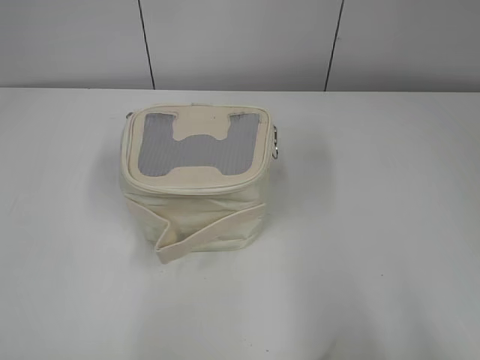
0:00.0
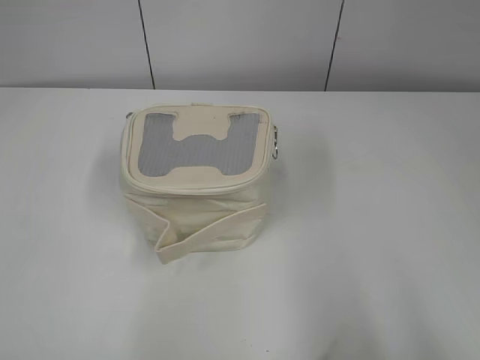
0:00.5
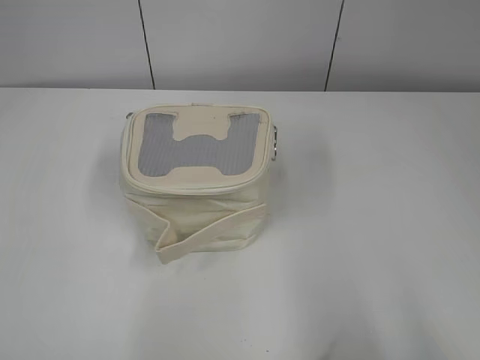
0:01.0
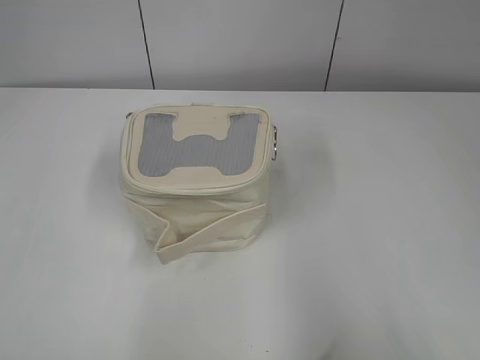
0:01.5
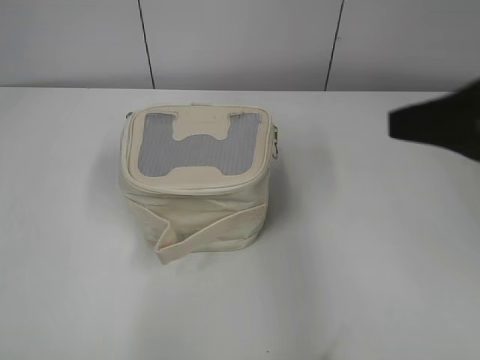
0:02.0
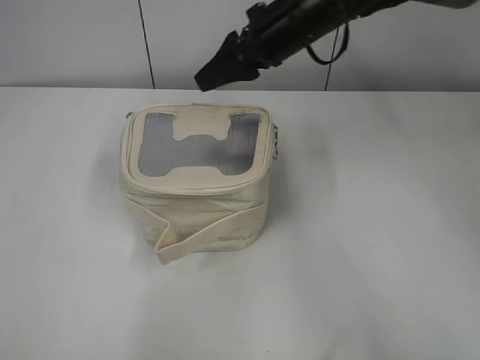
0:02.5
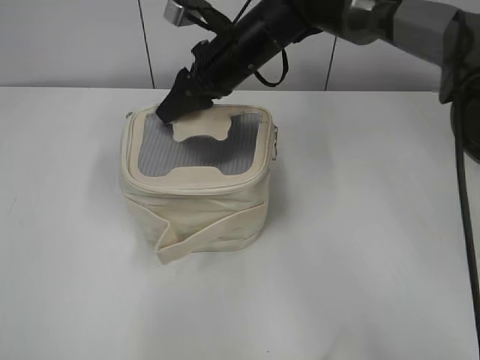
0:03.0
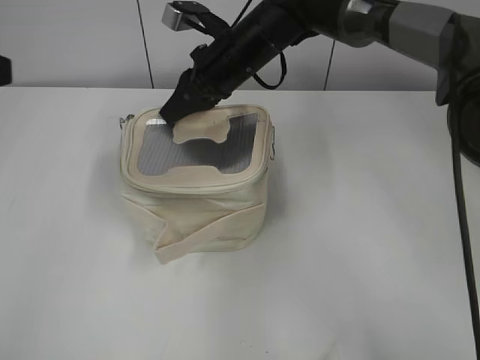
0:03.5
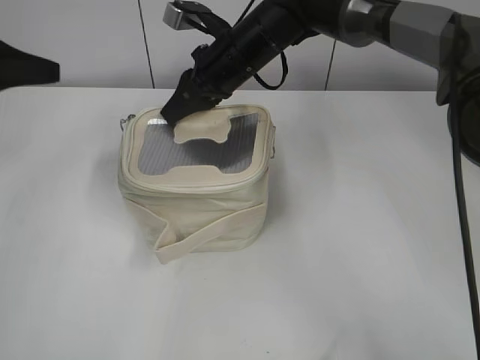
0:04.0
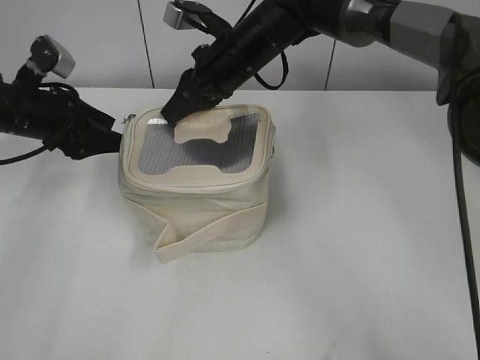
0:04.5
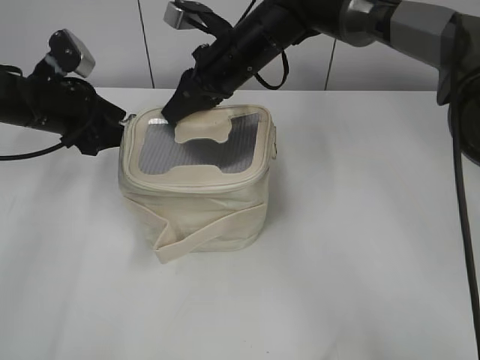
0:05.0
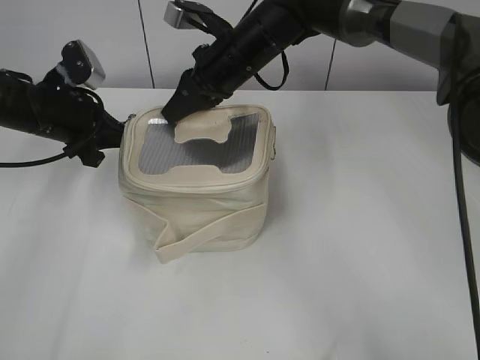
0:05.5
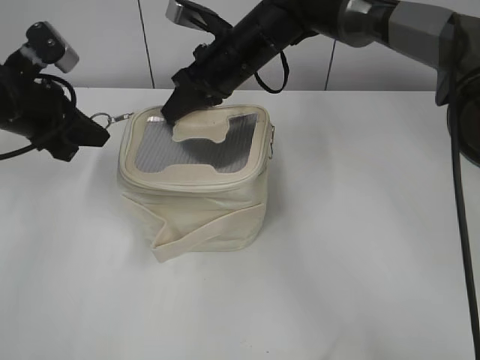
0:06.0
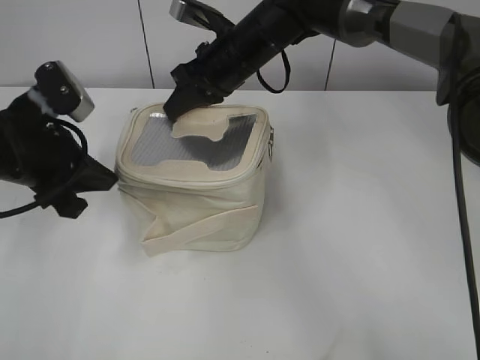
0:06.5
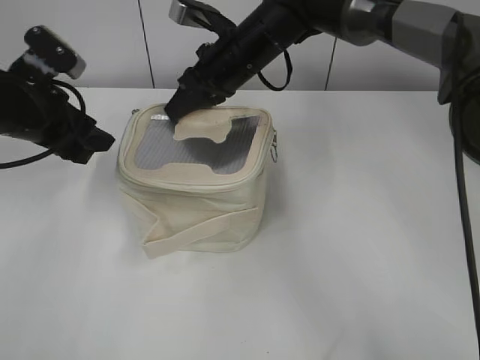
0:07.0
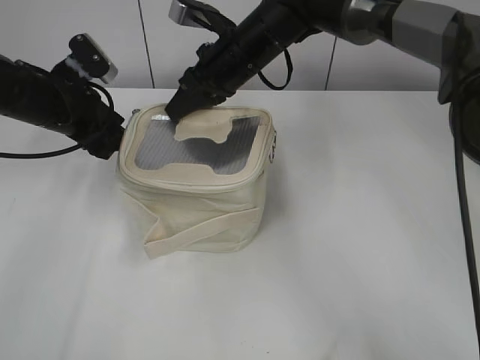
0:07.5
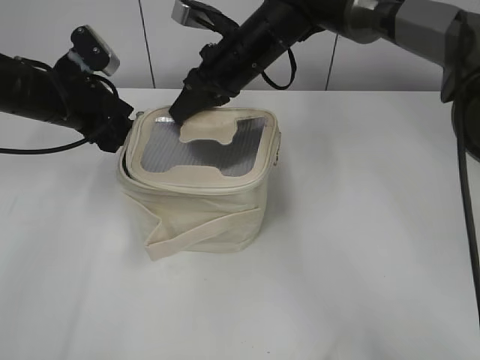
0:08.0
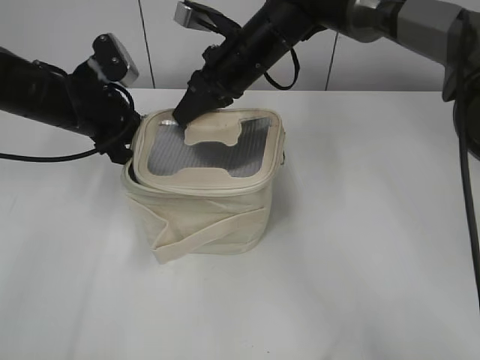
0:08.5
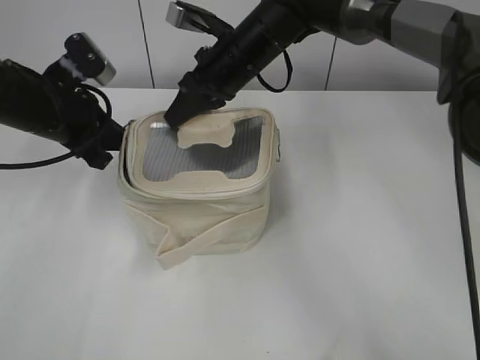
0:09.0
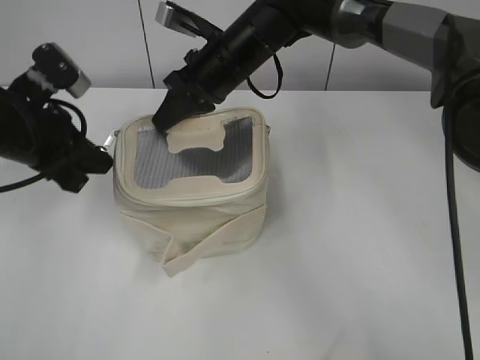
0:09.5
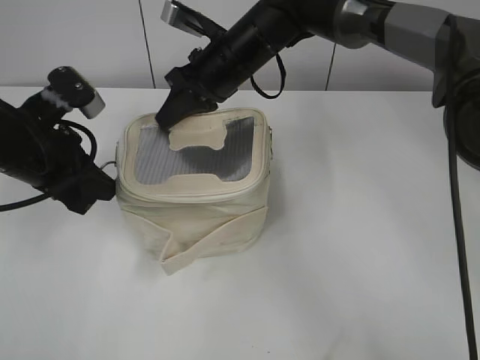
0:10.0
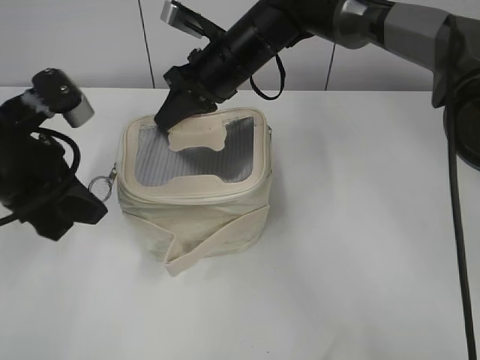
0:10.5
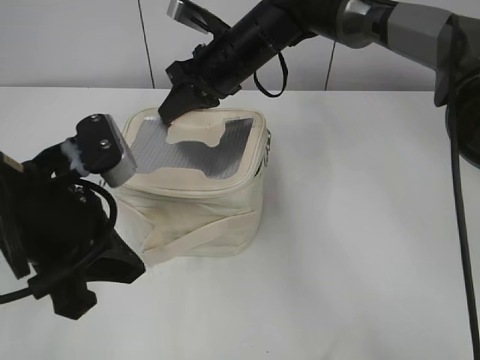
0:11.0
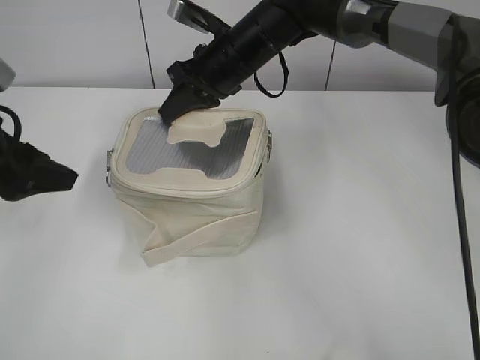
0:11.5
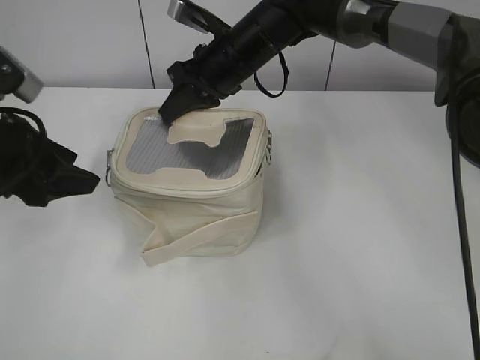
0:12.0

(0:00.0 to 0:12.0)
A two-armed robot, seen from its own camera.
0:02.0 - 0:04.0: The left gripper travels forward by some 35 cm, while the right gripper is displaced forward, to the left and downward by roughly 35 cm, and closes.
0:04.0 - 0:06.0: The left gripper travels to the right by approximately 5 cm, and closes its fingers.
0:06.0 - 0:08.0: The left gripper moves about 5 cm backward and comes back, and opens up.
0:08.0 - 0:10.0: The left gripper travels backward by roughly 10 cm, and closes its fingers.
0:10.0 - 0:12.0: The left gripper reaches approximately 10 cm backward, then returns, and opens.

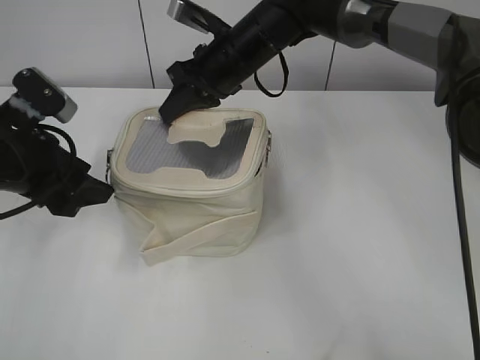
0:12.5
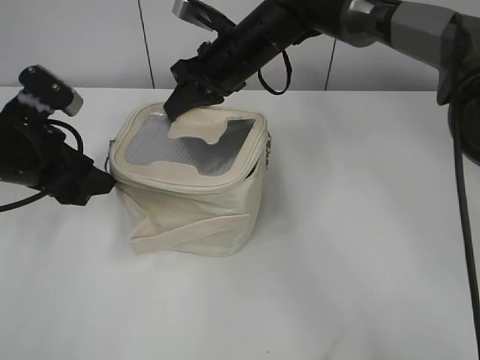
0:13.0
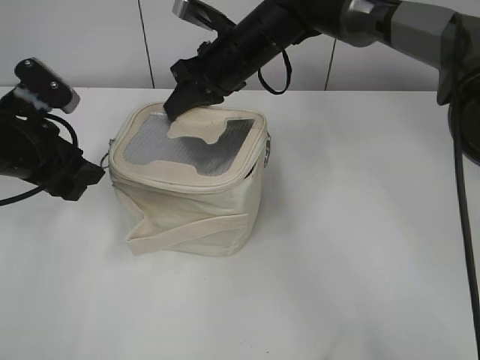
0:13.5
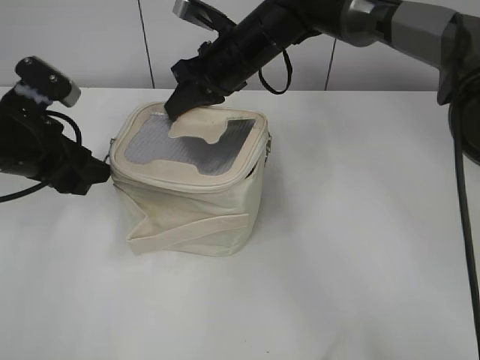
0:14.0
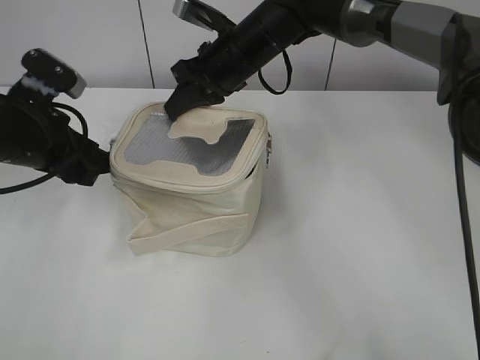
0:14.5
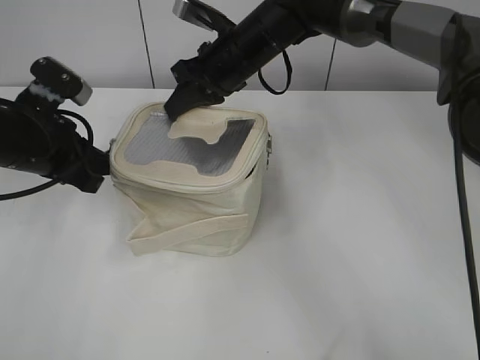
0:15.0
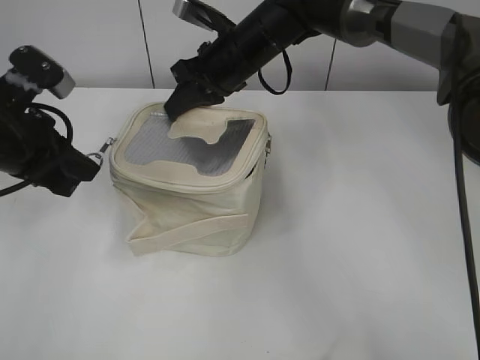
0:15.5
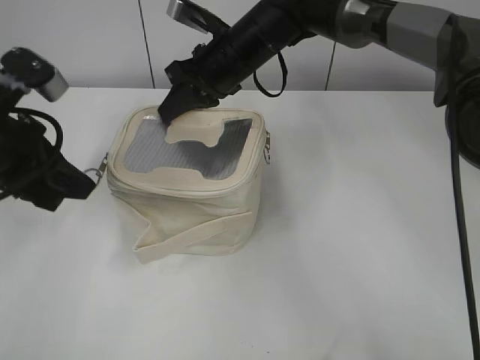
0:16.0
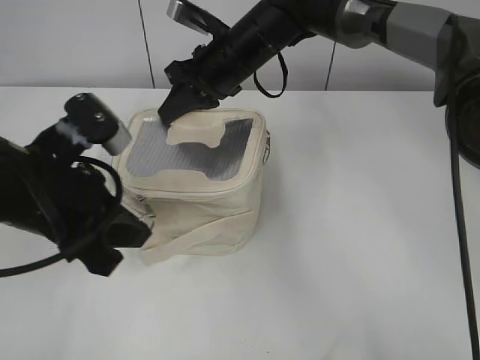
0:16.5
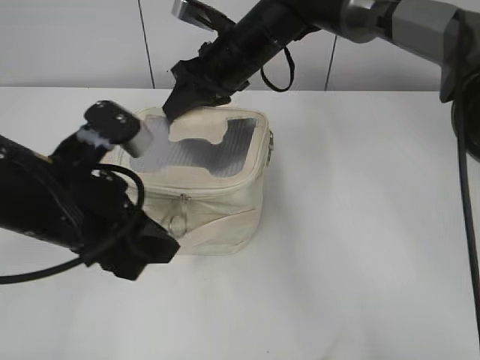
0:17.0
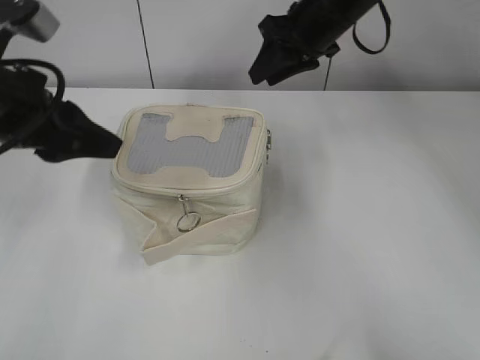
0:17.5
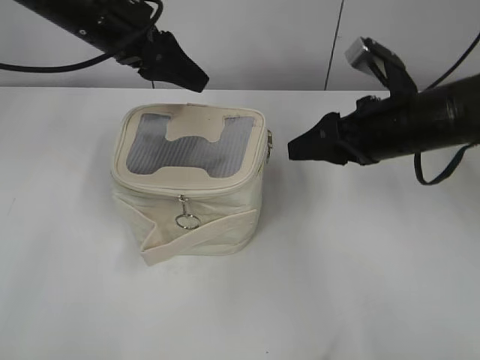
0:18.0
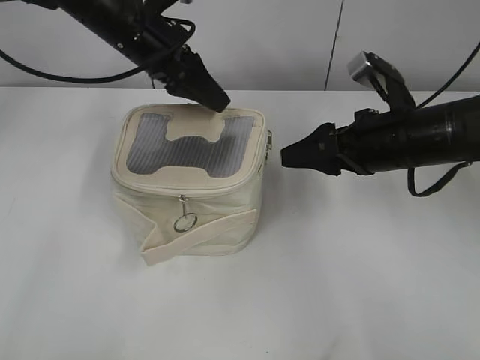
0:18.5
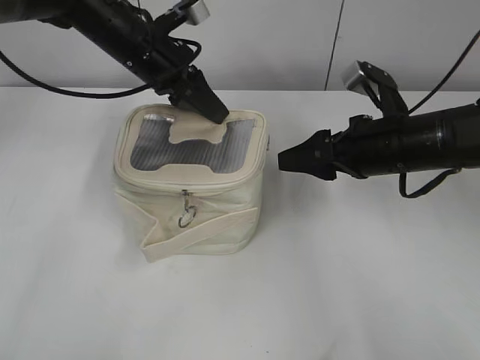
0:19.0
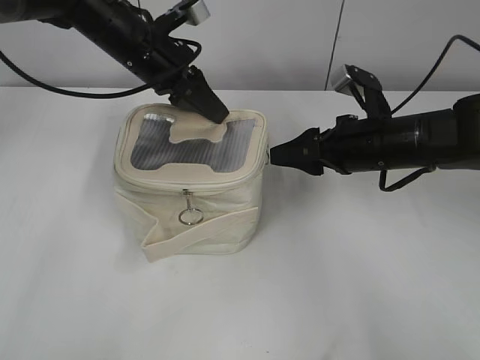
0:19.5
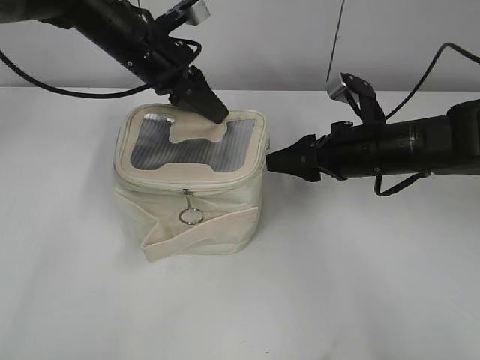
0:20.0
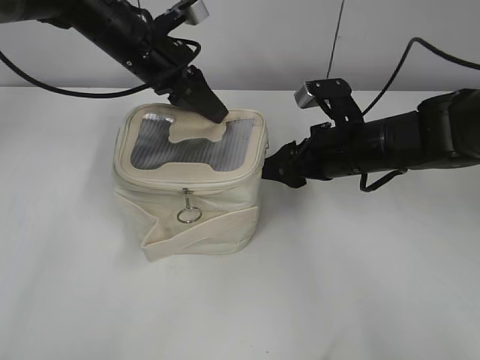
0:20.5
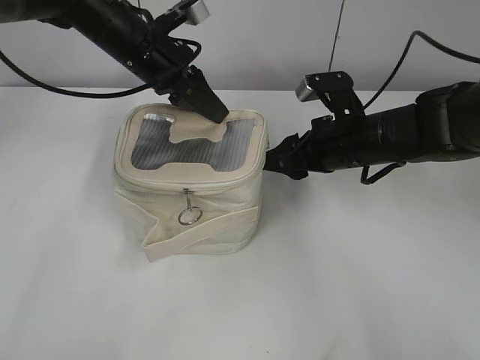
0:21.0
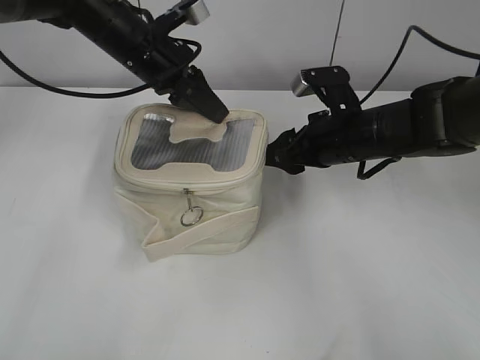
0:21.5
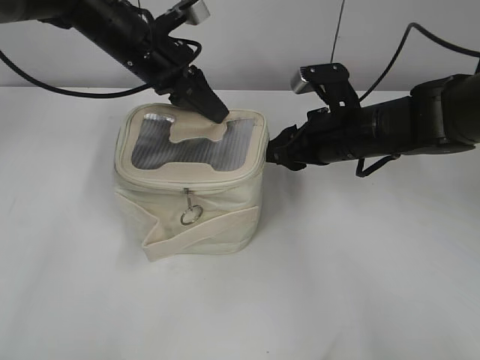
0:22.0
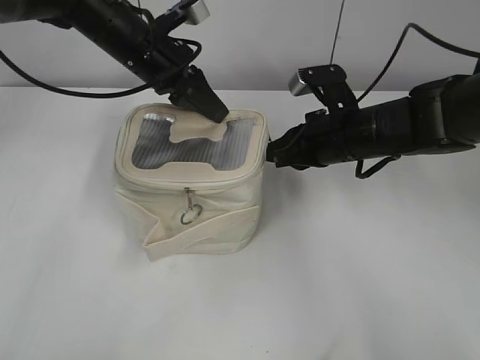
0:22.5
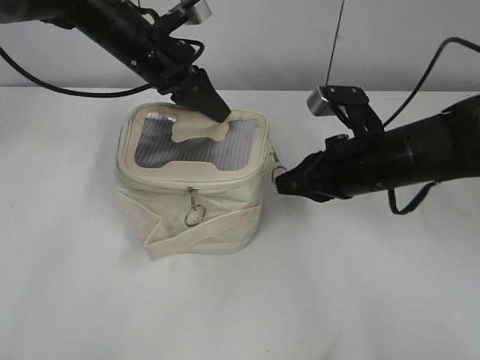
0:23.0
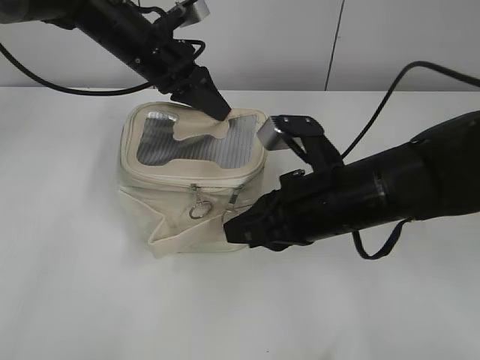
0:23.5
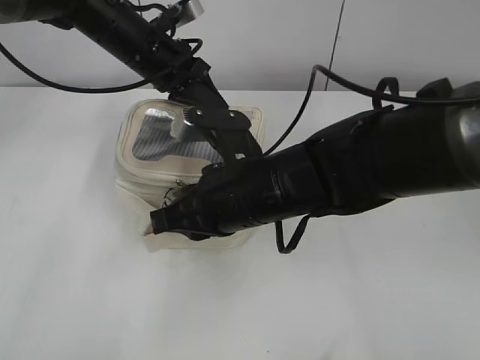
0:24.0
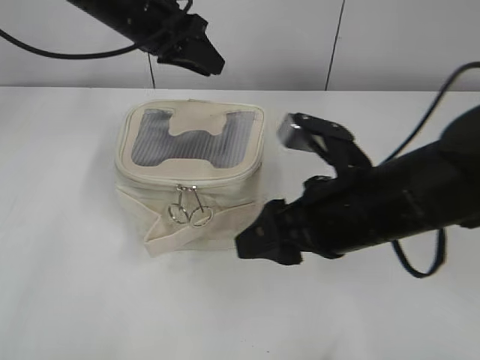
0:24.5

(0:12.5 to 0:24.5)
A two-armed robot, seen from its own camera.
Step, 0:12.5 - 0:17.0: Zip up the bag with your left hand.
Step, 0:17.5 - 0:24.0: Zip up the bag with your right hand.
0:12.5 - 0:14.5: There are only small adjustments of the grippers.
0:14.5 - 0:16.5: The left gripper travels backward and to the right by about 10 cm, and closes.
0:16.5 - 0:18.5: The left gripper travels forward by approximately 20 cm, and opens, while the right gripper heads to the right and backward, covering approximately 25 cm, and opens.
0:18.5 - 0:20.5: The right gripper ends up roughly 5 cm from where it was. Meanwhile the left gripper closes up.
0:20.5 - 0:22.5: The right gripper closes.
0:22.5 - 0:24.5: The right gripper travels backward by some 15 cm, and opens its fingers.

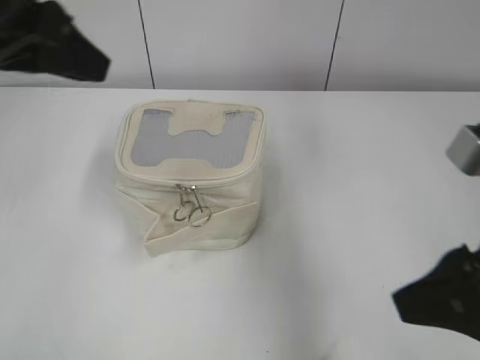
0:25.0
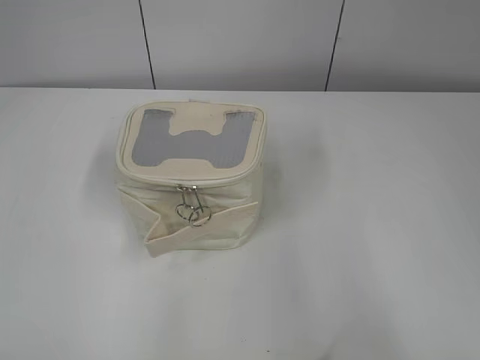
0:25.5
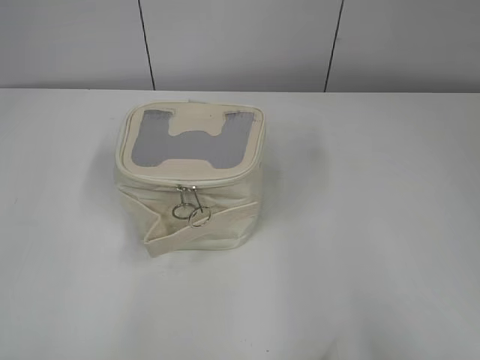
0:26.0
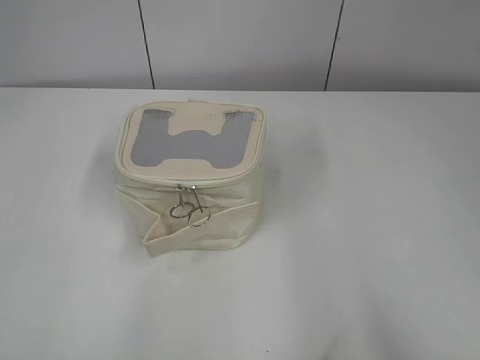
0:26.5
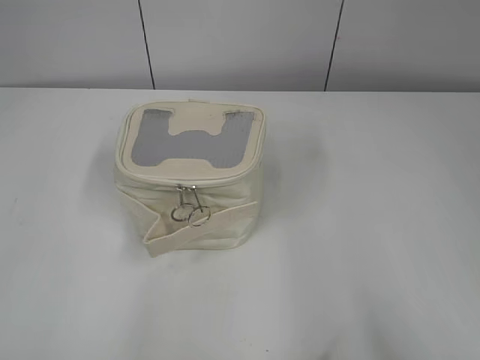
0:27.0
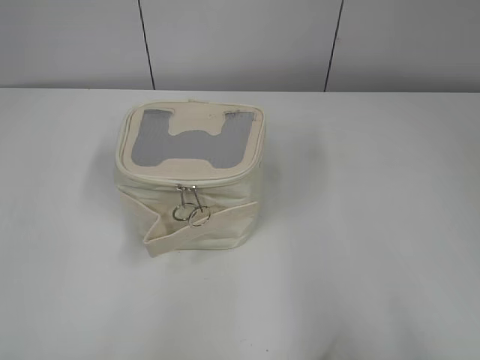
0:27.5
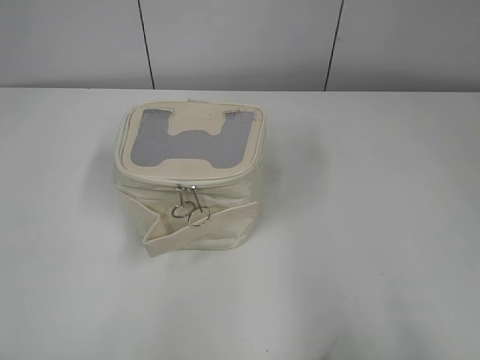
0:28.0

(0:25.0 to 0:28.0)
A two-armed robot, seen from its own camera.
0:25.0 - 0:26.5: The left gripper shifts some 30 cm backward and to the left, and opens its fingers. Meanwhile the right gripper shifts about 20 cm backward and to the right.
